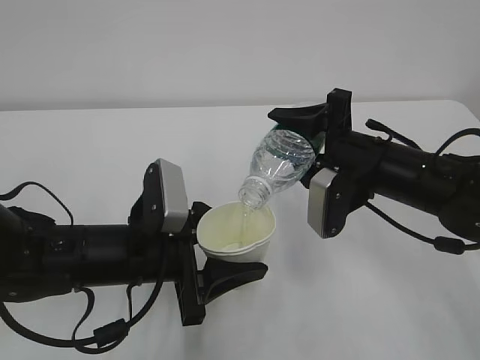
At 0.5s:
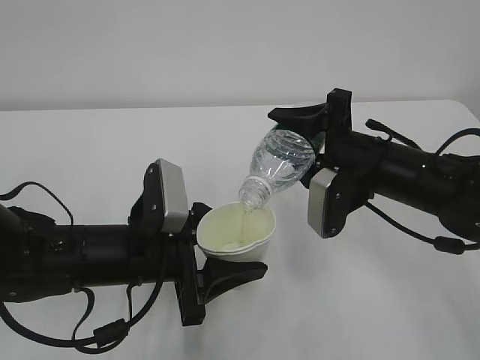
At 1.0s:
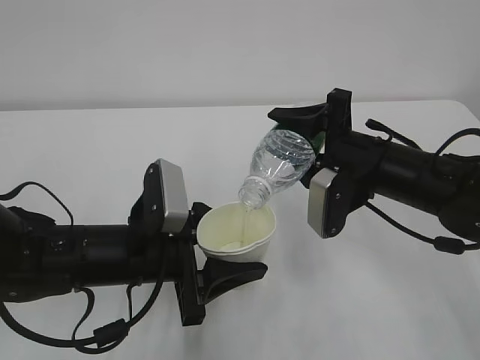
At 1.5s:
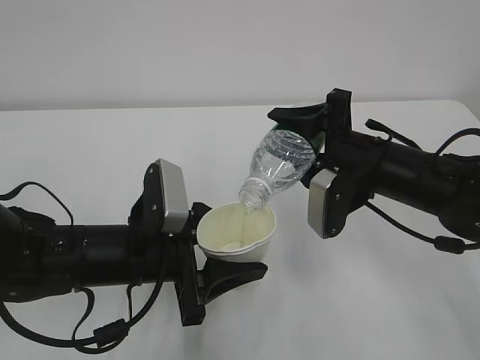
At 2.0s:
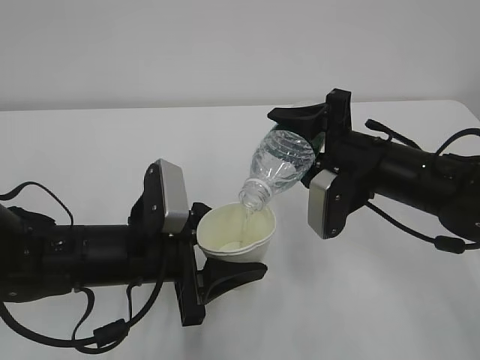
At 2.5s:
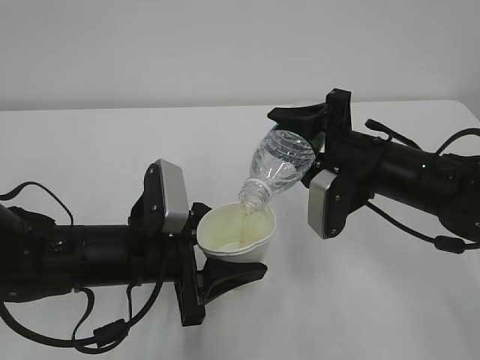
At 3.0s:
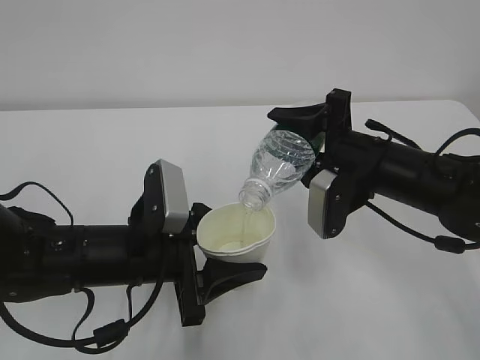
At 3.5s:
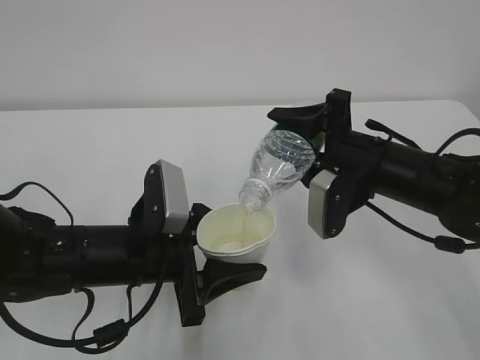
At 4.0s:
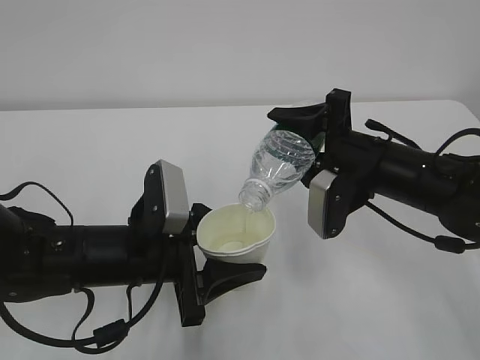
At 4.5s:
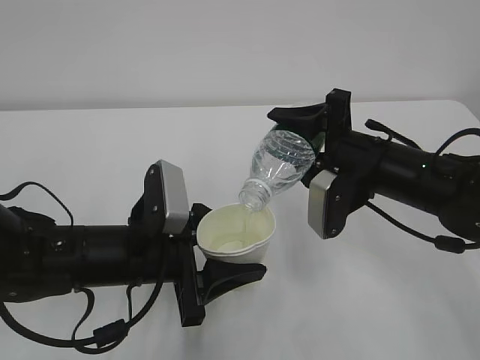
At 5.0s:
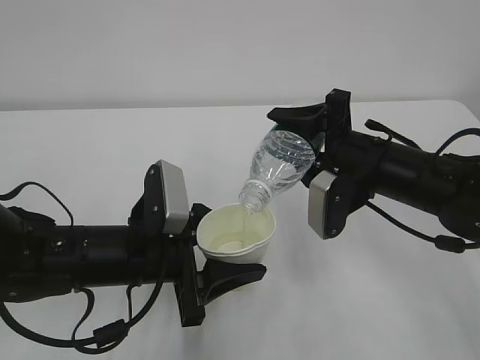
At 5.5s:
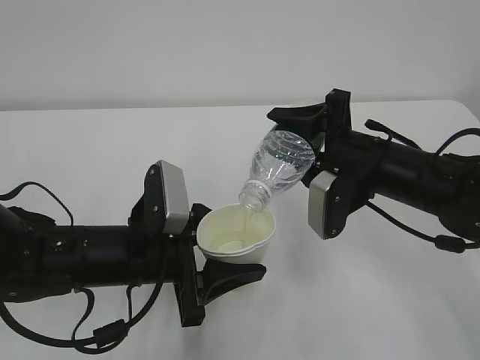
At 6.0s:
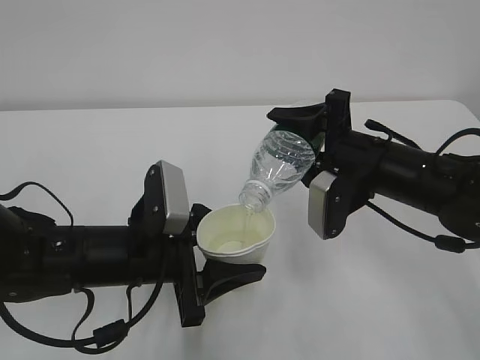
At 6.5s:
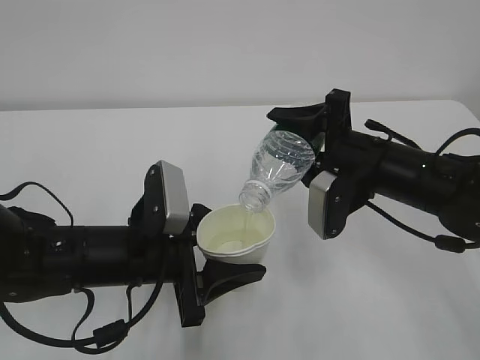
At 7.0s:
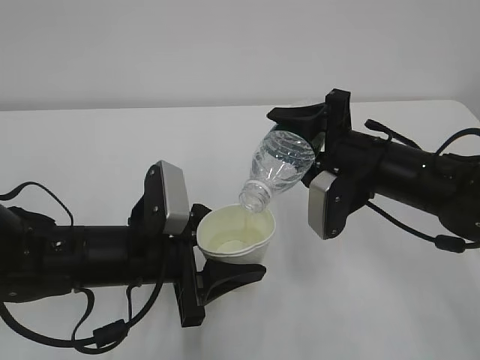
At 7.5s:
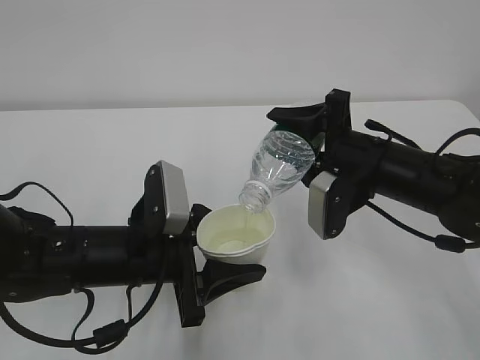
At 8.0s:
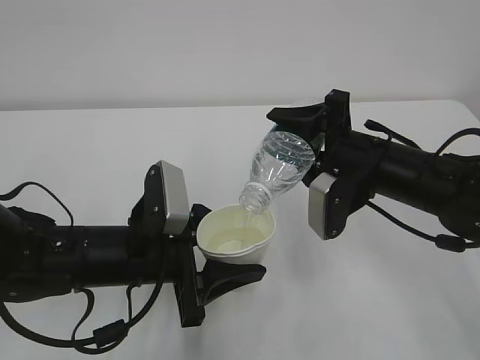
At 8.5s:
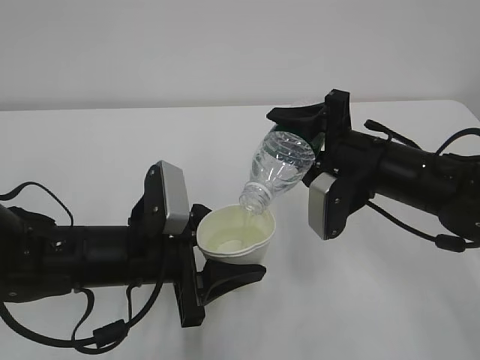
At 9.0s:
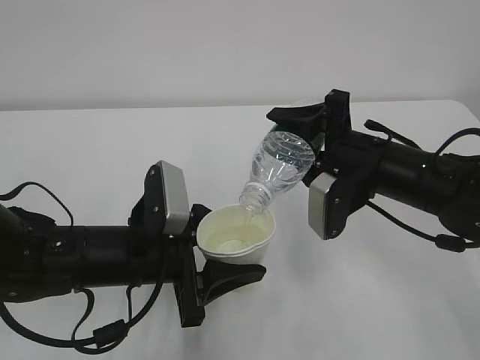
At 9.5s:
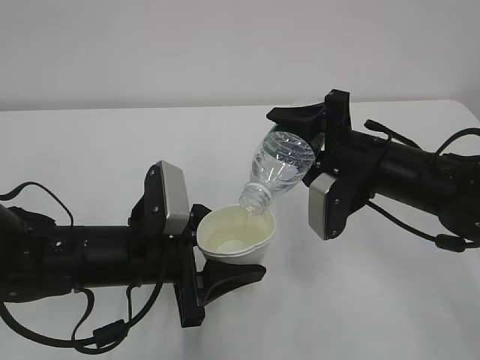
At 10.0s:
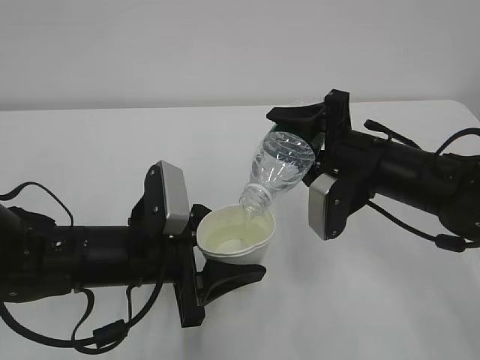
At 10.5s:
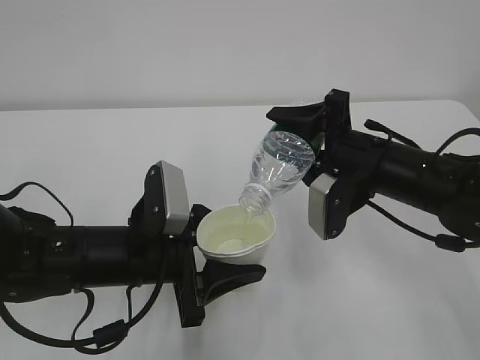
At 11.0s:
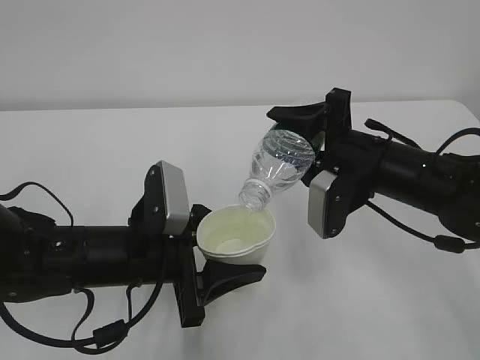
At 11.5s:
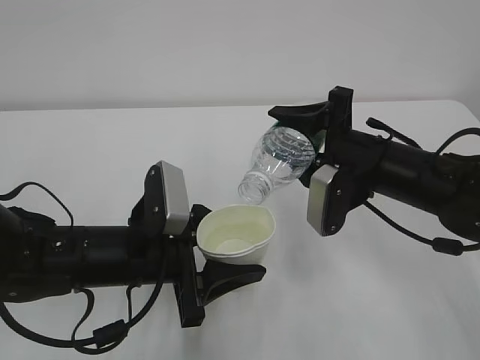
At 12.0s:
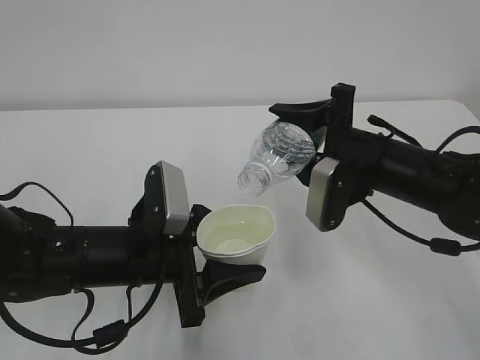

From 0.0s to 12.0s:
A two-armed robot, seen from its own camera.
From 0.0s to 8.0s: Both grippers stay about where they are.
From 8.0s to 10.0s: Neither gripper changes place.
From 10.0s to 12.0s: The grippers make only small movements.

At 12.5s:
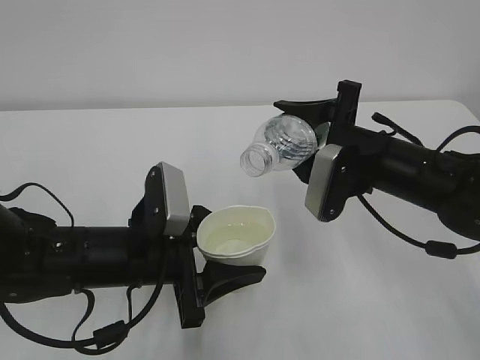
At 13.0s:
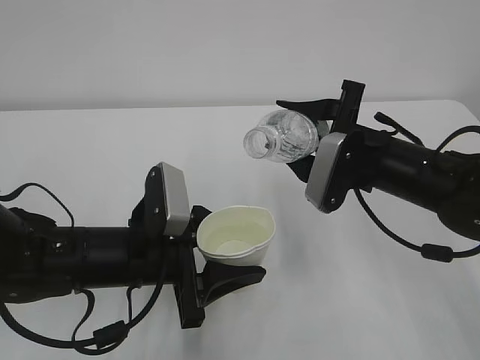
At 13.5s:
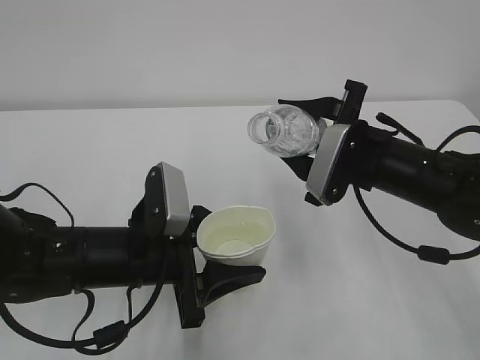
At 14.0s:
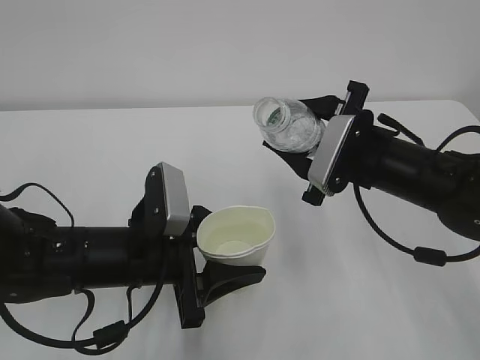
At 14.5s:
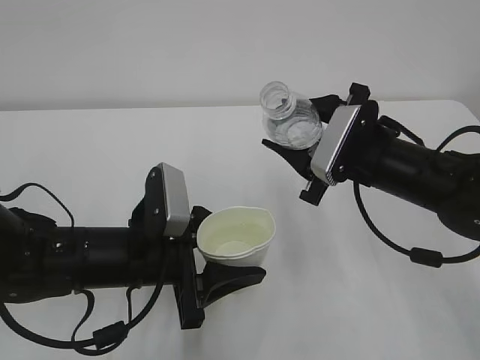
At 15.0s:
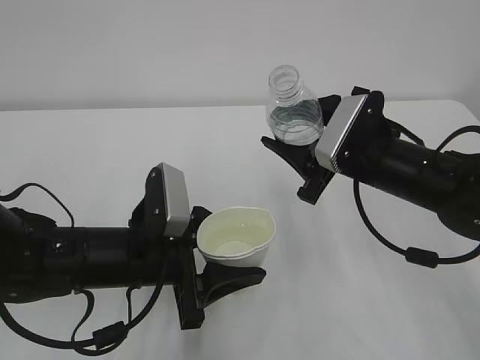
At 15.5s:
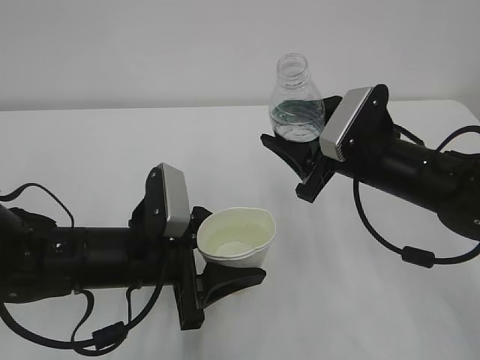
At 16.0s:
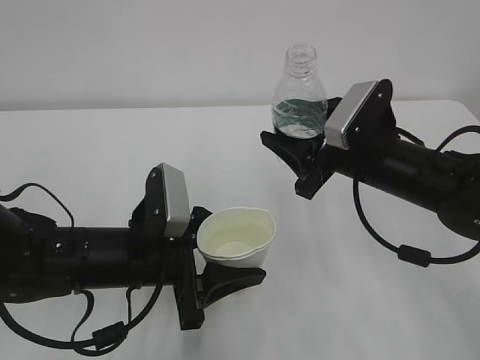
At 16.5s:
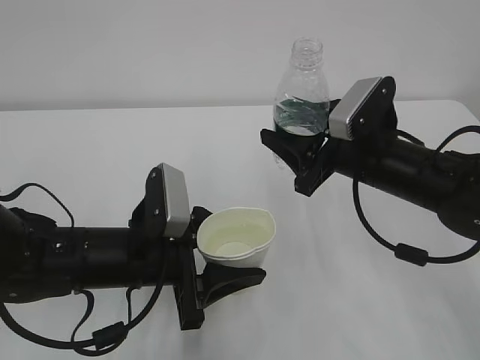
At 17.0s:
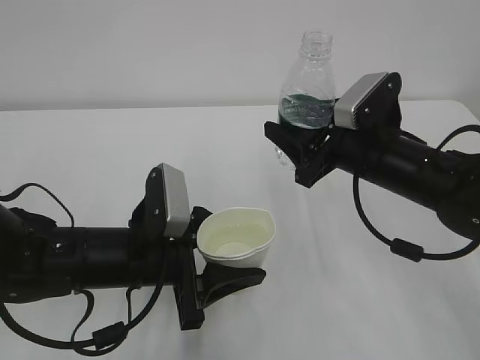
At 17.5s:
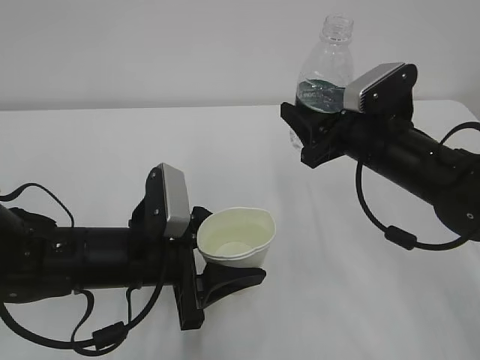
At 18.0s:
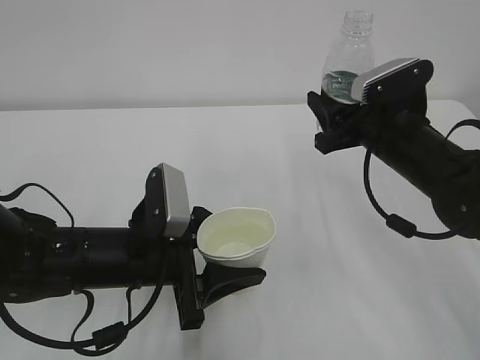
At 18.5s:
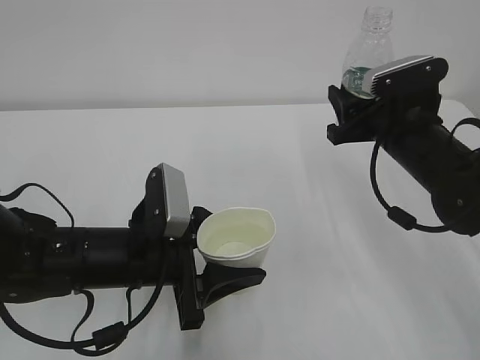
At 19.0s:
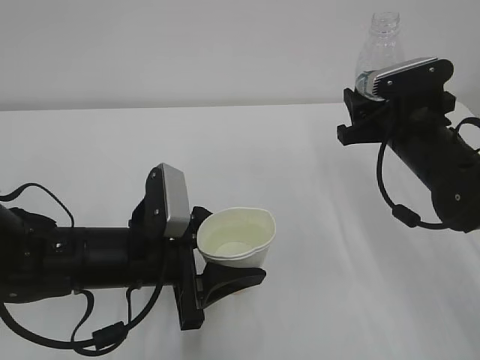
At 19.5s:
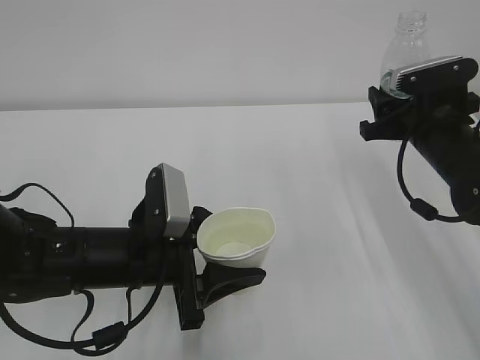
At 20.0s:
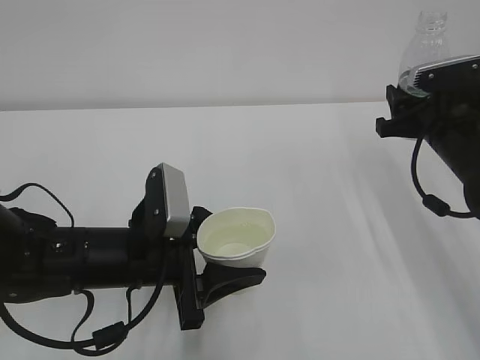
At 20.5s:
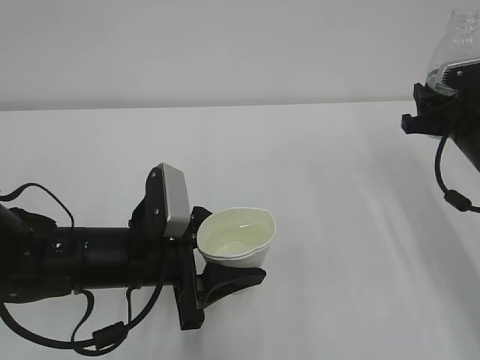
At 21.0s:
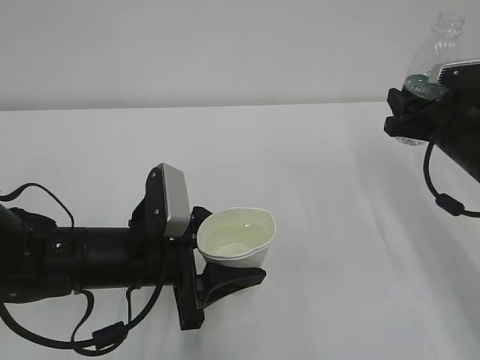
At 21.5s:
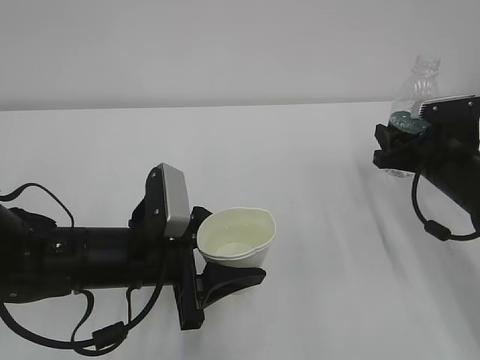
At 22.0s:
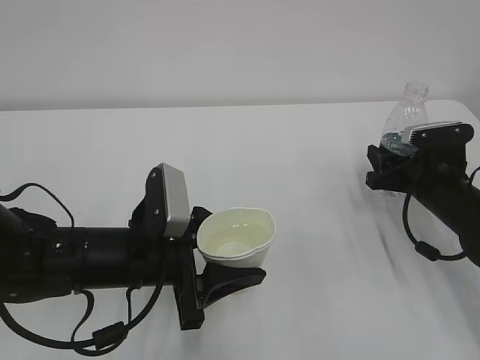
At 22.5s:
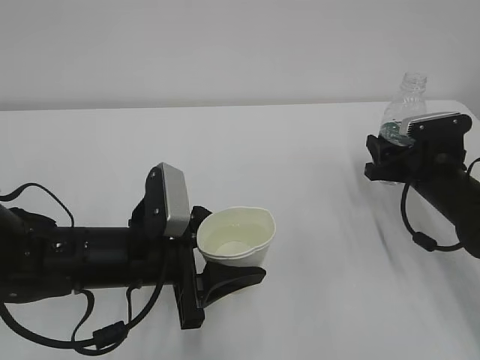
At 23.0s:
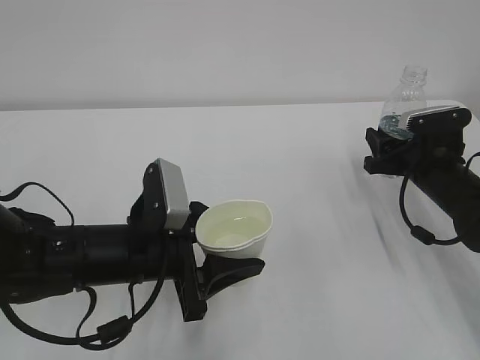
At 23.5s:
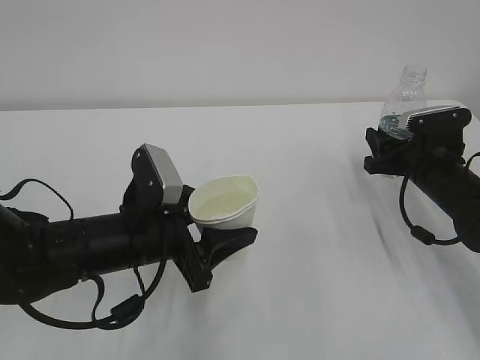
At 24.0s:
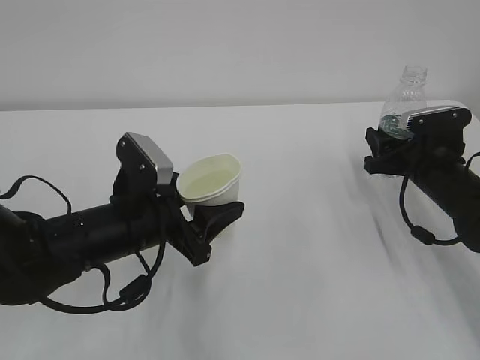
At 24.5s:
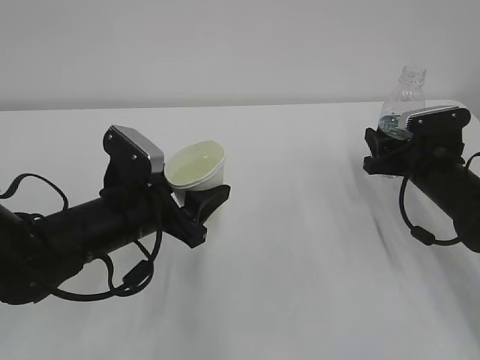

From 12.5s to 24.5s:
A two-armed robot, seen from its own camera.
From 16.5s to 18.5s: The right gripper shifts by about 5 cm.
From 18.5s to 20.5s: The right gripper is displaced to the right by about 10 cm.
From 20.5s to 22.5s: The right gripper is displaced downward by about 10 cm.

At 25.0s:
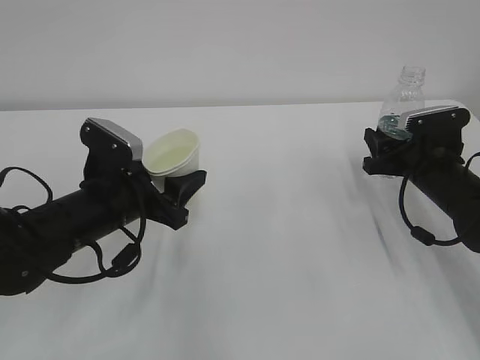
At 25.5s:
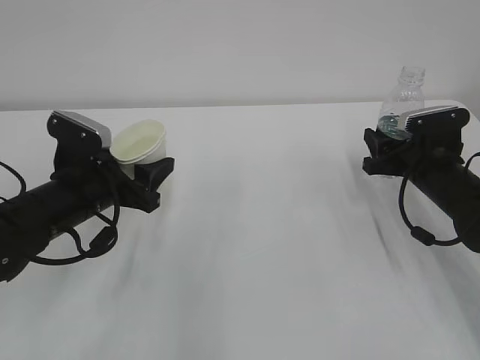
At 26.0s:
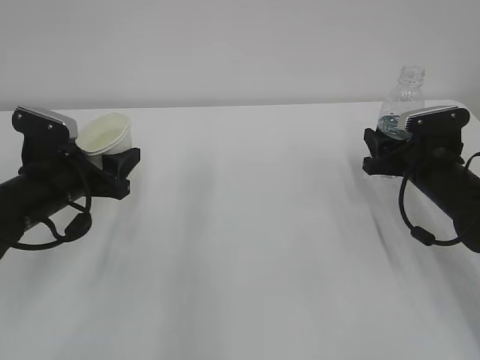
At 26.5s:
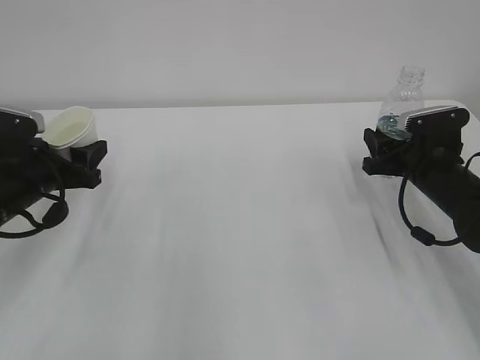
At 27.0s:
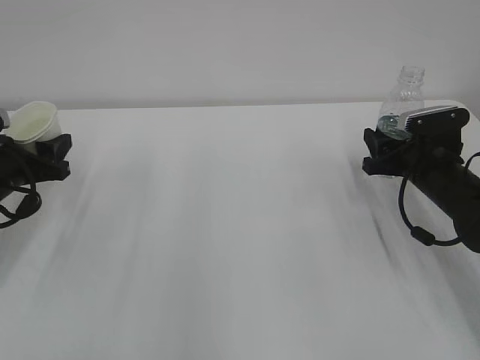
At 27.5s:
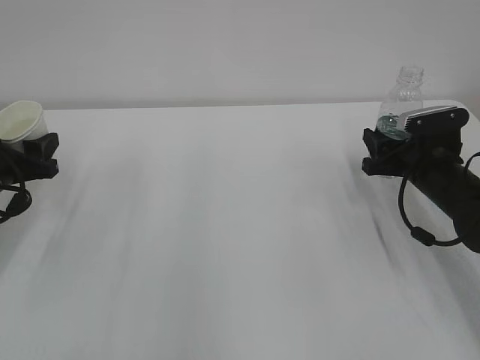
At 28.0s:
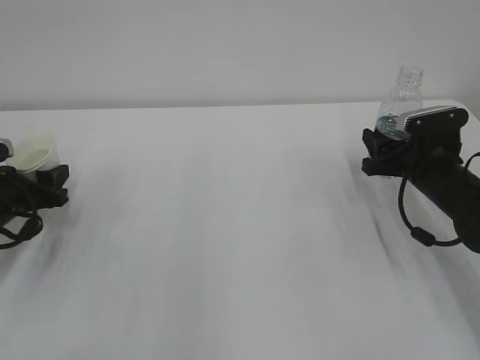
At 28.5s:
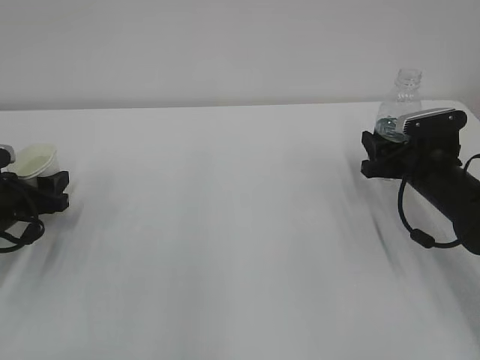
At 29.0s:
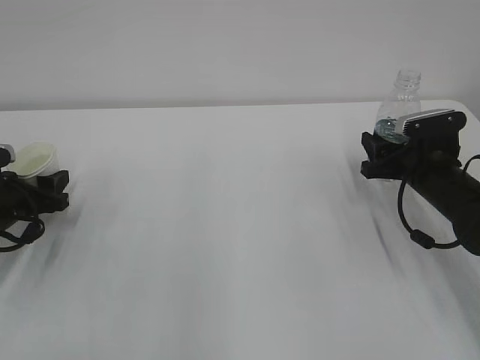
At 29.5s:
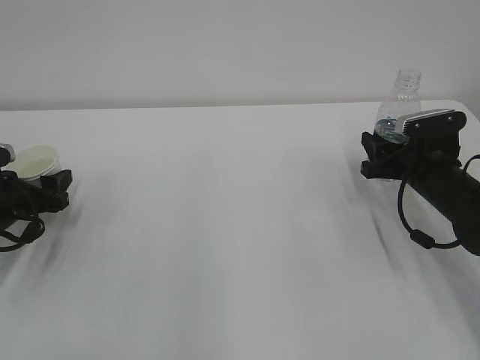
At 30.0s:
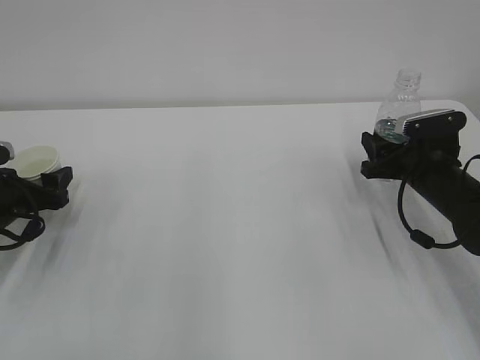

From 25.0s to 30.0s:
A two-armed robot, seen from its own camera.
From 25.0s to 27.5s: The left gripper travels to the left by approximately 15 cm.
From 27.5s to 30.0s: The left gripper opens.
